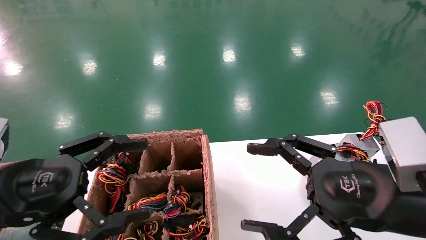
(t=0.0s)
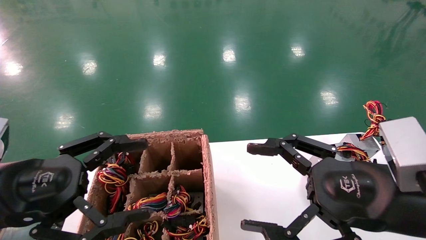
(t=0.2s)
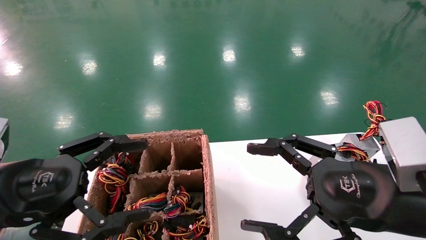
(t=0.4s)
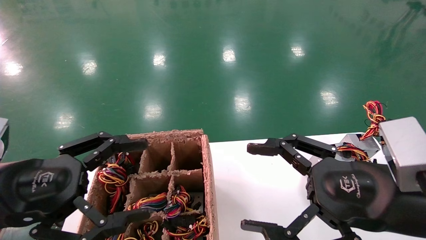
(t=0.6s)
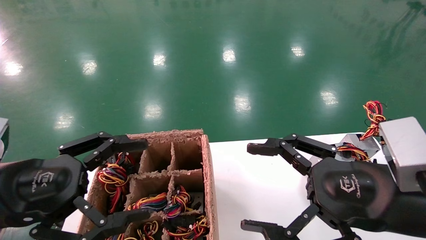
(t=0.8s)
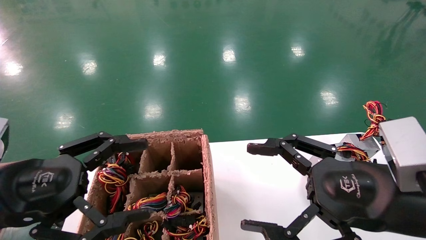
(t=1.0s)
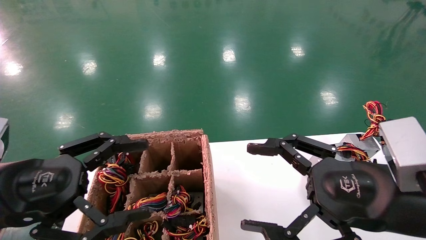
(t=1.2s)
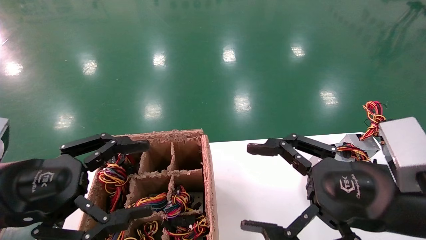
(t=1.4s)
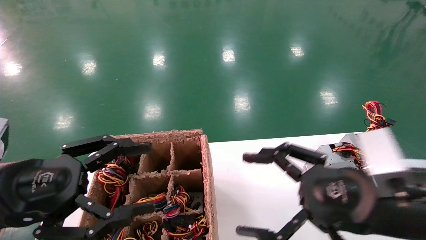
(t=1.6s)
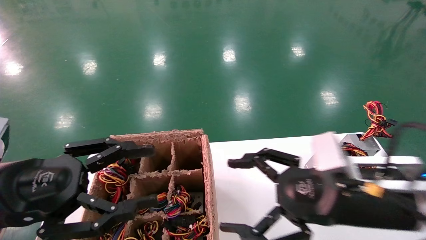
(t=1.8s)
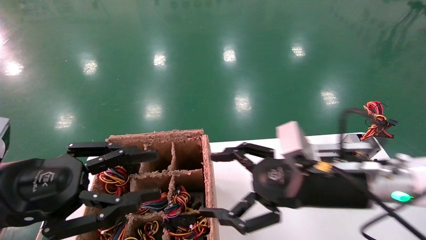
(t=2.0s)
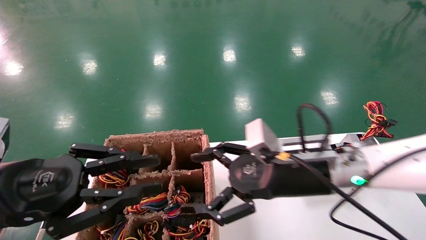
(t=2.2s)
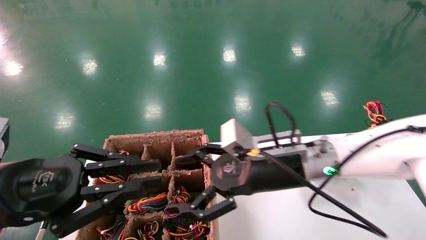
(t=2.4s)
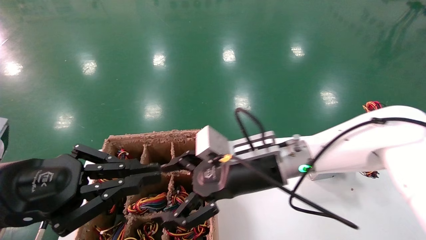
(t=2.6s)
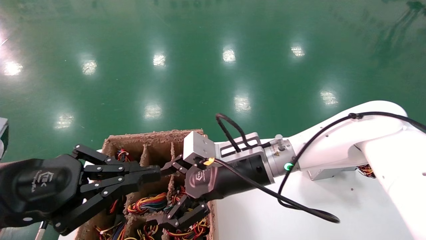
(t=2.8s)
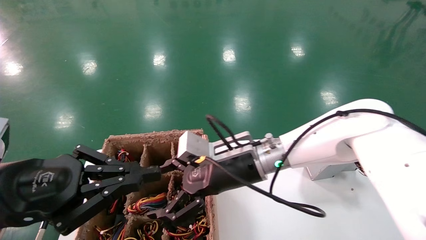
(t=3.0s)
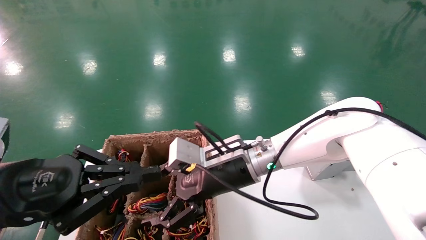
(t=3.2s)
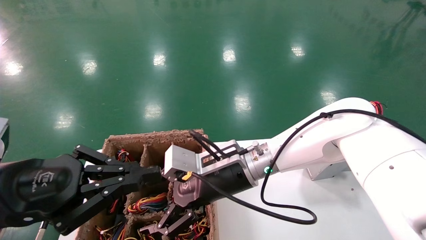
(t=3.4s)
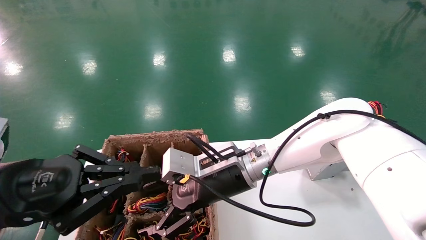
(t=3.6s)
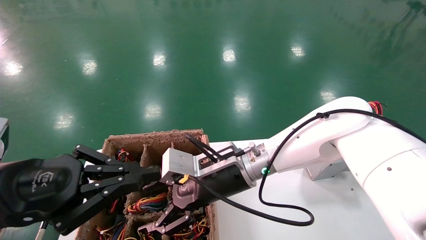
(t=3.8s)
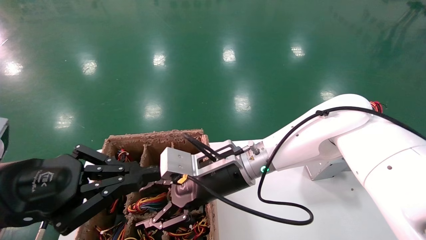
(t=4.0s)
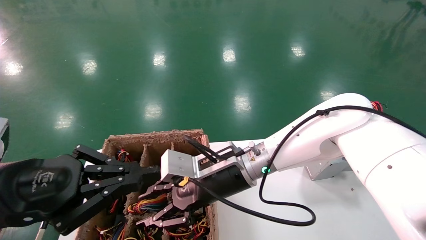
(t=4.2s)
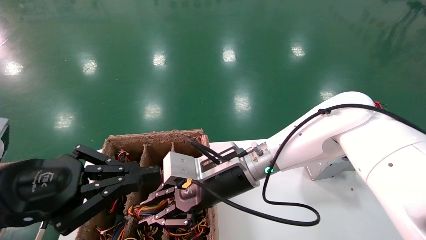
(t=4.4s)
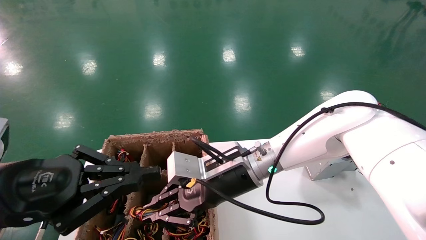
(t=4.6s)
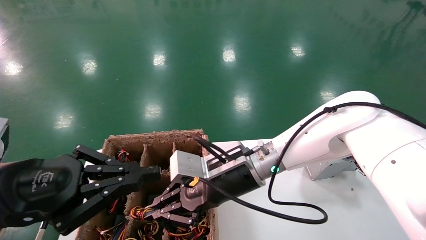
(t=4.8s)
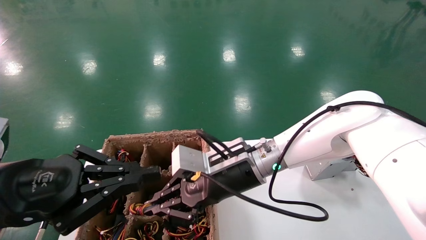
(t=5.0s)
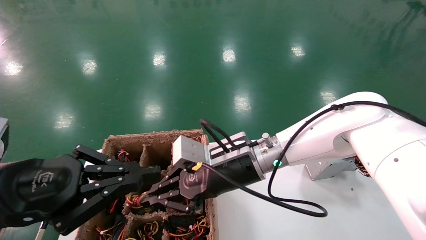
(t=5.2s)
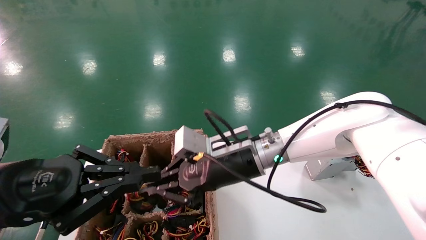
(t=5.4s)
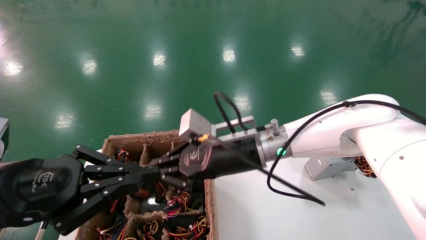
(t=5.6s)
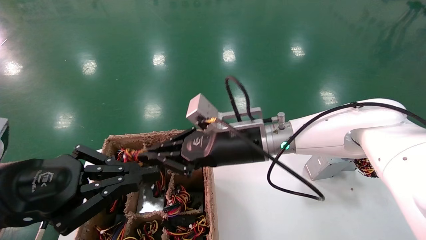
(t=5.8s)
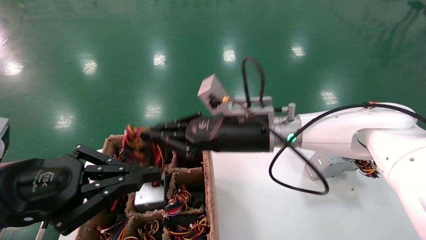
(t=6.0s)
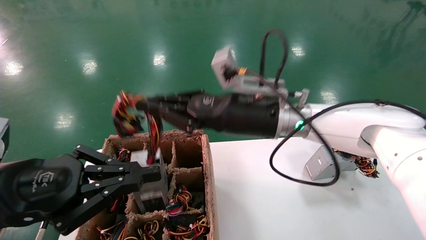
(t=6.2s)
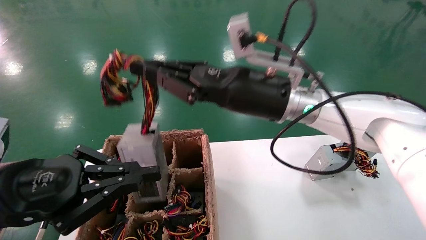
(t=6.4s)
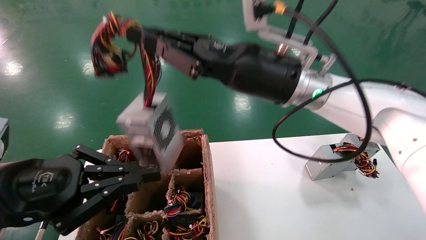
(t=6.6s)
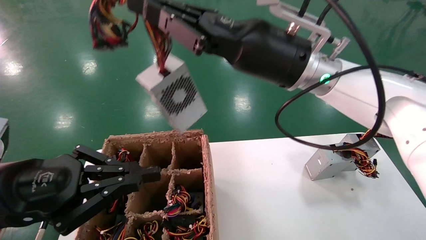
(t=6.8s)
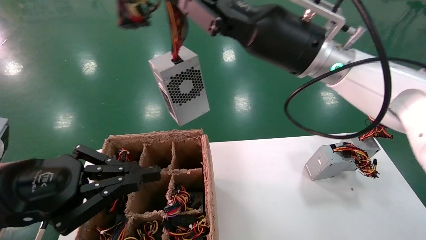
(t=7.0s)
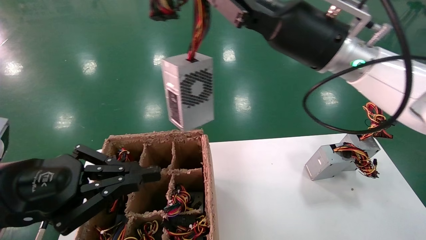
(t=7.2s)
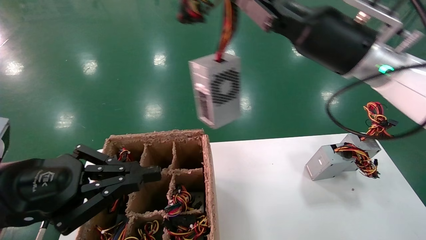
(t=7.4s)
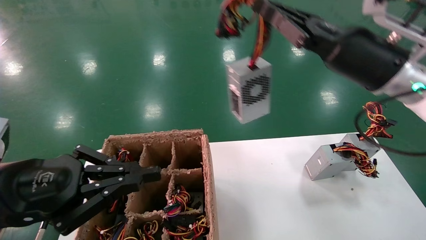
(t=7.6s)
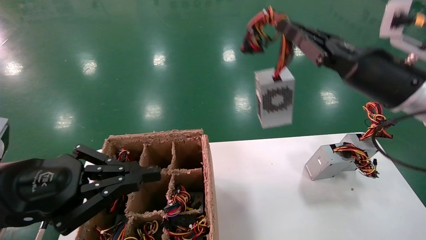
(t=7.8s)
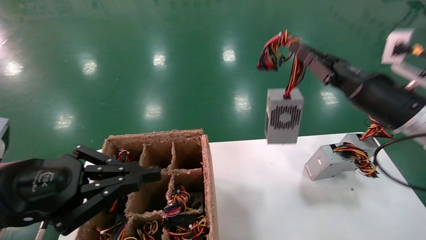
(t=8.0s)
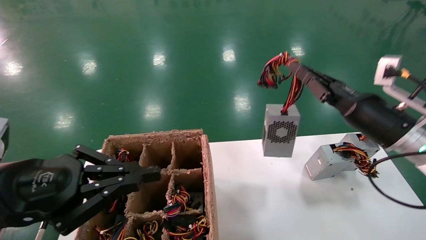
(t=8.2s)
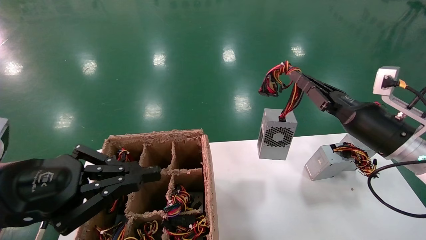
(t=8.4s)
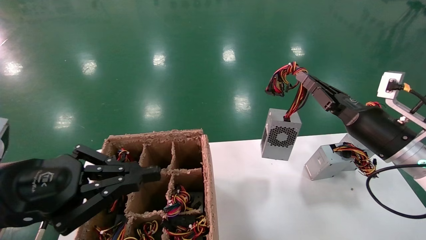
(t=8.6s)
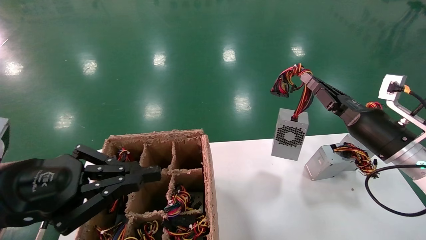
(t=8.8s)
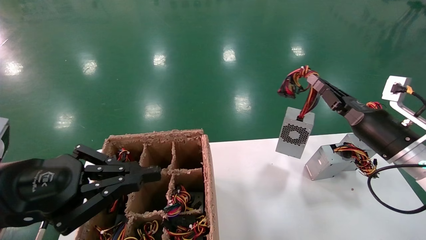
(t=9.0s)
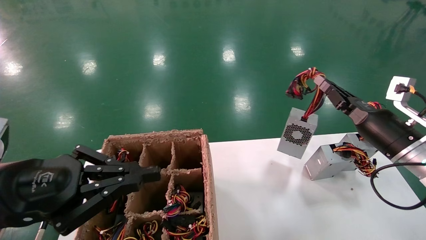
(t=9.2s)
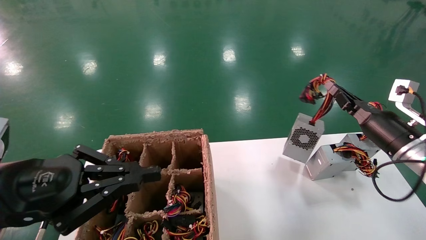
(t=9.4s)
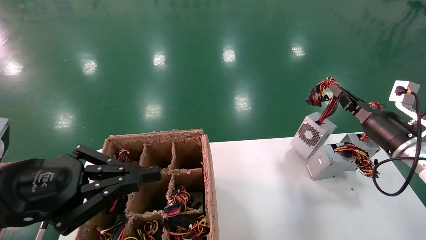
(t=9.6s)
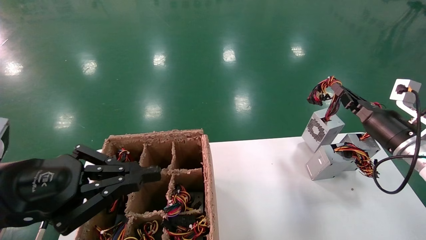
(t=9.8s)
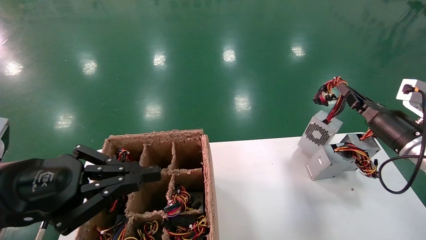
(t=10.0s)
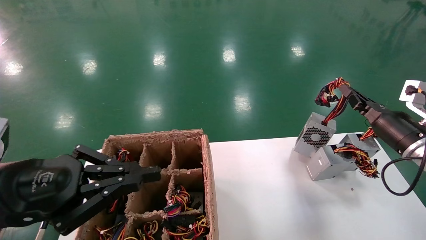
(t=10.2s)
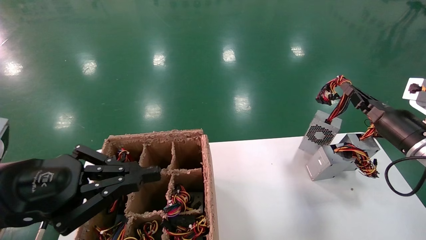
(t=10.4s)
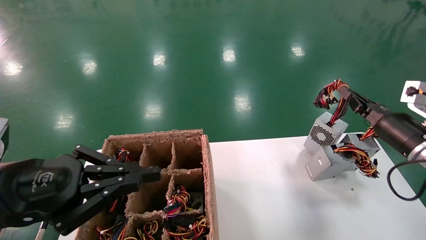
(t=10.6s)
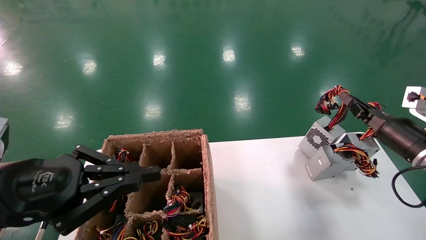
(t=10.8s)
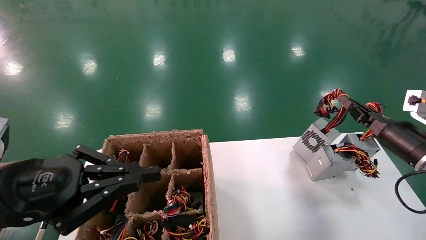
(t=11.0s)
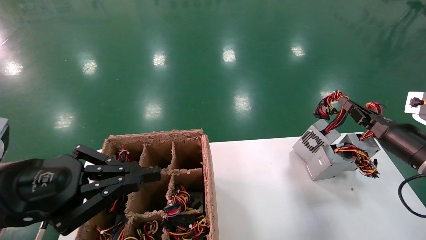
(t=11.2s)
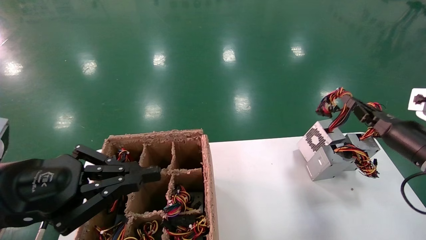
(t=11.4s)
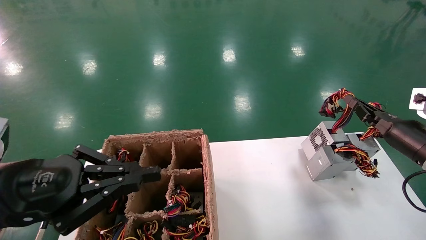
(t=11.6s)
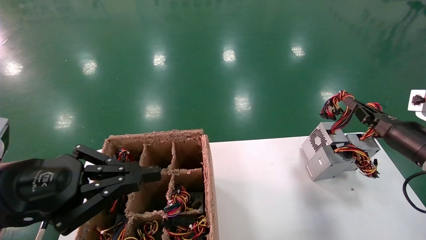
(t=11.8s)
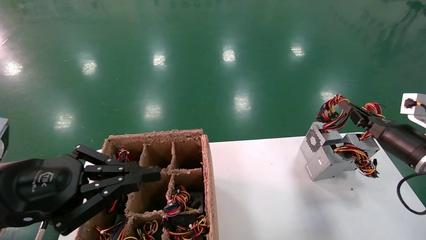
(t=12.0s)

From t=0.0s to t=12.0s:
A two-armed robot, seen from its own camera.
Step, from t=1.8s to t=4.6s: Grab the main unit power supply from the containment box.
From t=0.0s to t=1.6s: The grippers stay close to where they were, moving slightly.
From t=1.6s to t=3.0s: The left gripper closes. The right gripper is displaced to the left and forward by about 20 cm.
From t=3.0s to t=4.4s: The right gripper closes up.
From t=4.4s to t=6.0s: The right gripper is displaced upward by roughly 5 cm.
From t=6.0s to t=7.6s: The right gripper goes some 20 cm to the right and upward.
From t=7.6s to t=9.0s: The right gripper moves downward and to the right, approximately 20 cm.
From t=9.0s to t=10.4s: The right gripper moves to the right, roughly 5 cm.
From t=10.4s to t=12.0s: The grippers stay close to where they were, moving slightly.

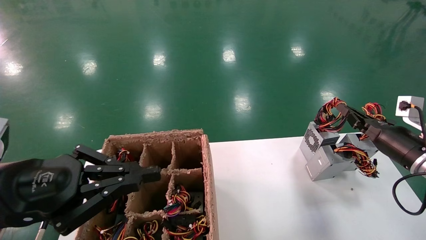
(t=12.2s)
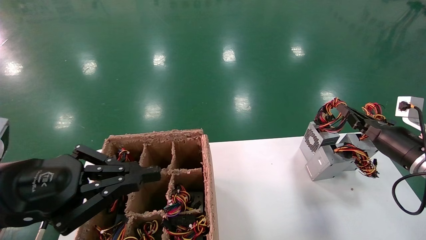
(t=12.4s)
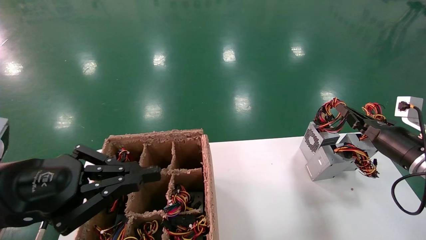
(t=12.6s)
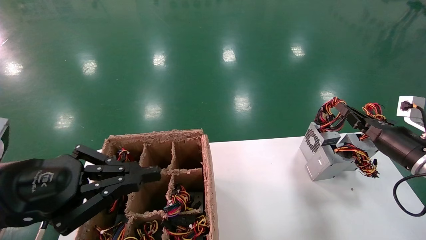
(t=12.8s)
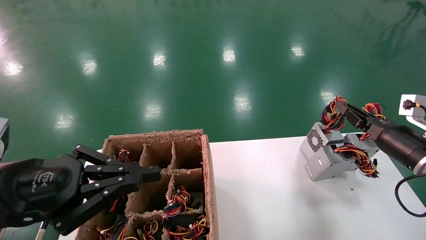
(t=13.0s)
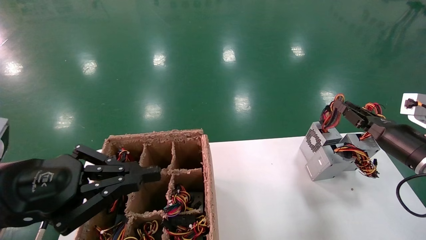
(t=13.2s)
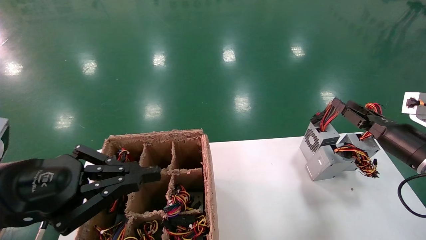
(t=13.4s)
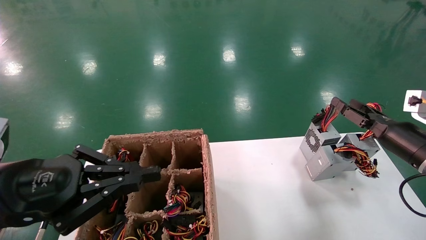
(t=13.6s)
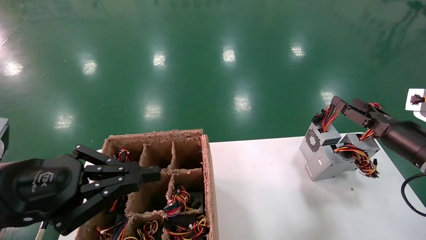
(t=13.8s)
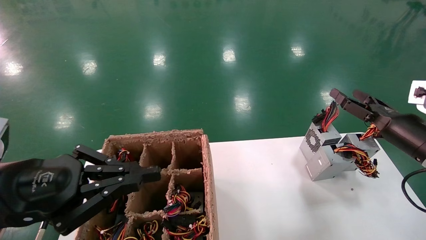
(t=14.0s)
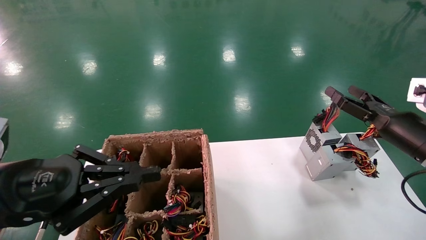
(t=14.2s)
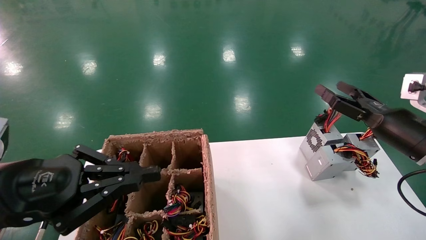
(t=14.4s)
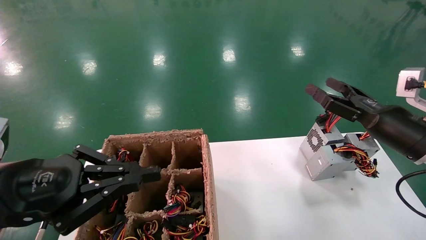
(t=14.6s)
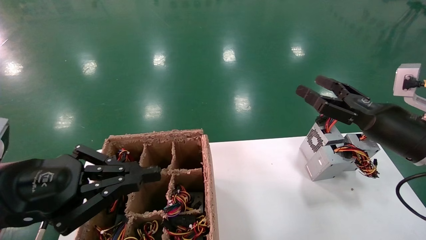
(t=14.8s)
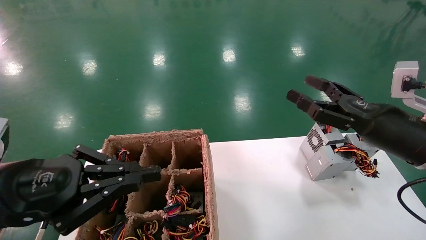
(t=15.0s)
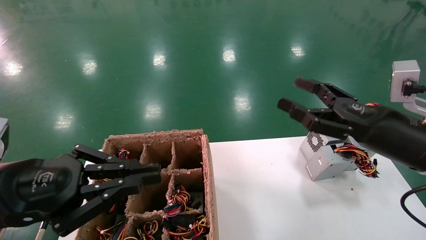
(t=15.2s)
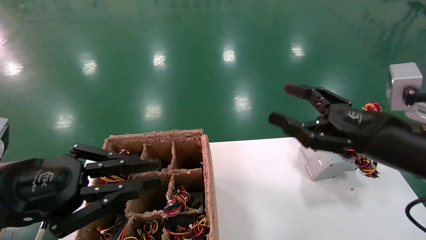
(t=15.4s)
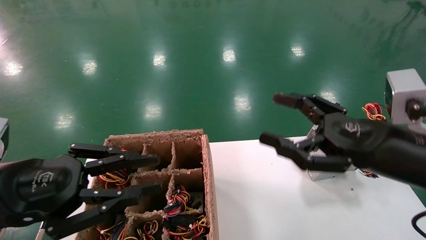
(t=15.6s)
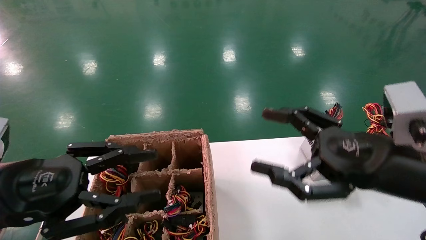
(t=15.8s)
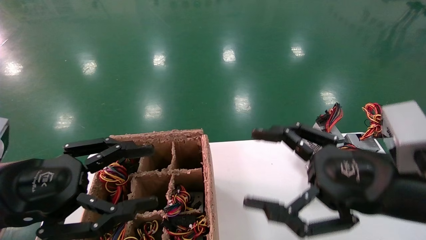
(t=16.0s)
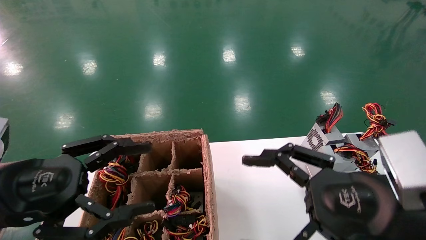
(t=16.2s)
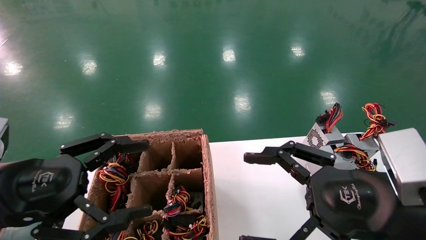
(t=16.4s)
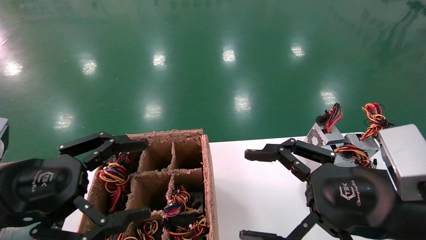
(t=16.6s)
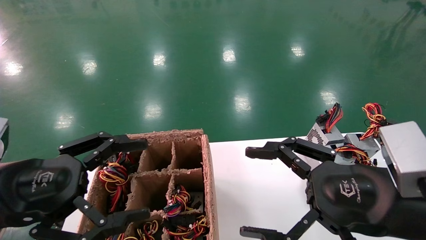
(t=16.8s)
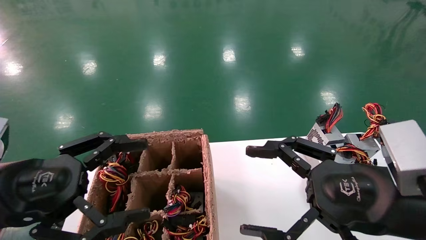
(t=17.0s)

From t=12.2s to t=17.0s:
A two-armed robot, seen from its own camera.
From t=12.2s to t=13.8s: The right gripper opens.
From t=13.8s to t=15.4s: The right gripper heads to the left, backward and upward, covering approximately 20 cm.
From t=15.4s to t=17.0s: The left gripper opens. The right gripper moves backward and to the left, approximately 10 cm.
